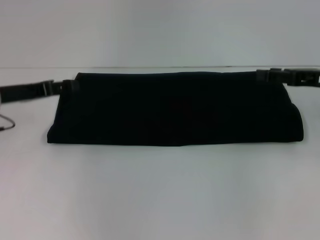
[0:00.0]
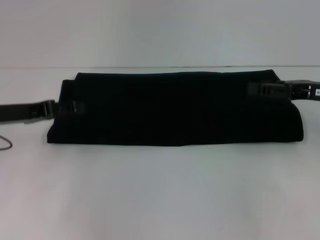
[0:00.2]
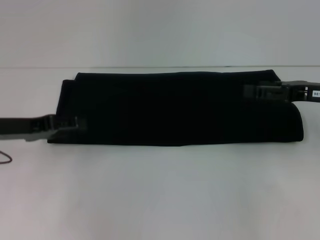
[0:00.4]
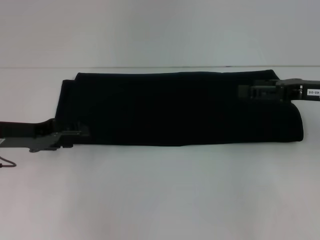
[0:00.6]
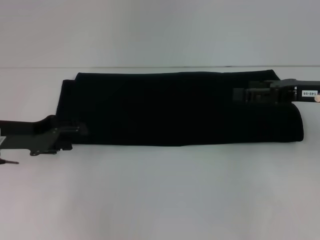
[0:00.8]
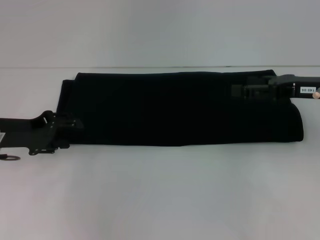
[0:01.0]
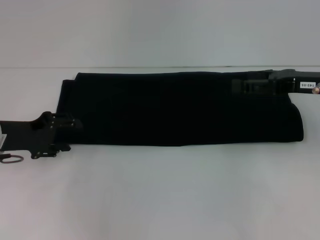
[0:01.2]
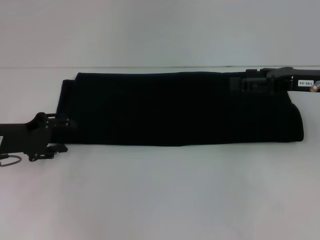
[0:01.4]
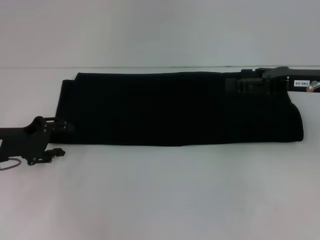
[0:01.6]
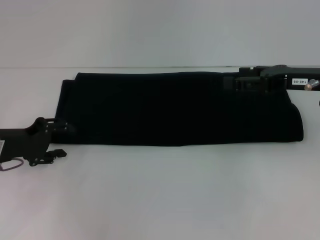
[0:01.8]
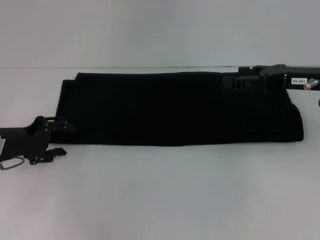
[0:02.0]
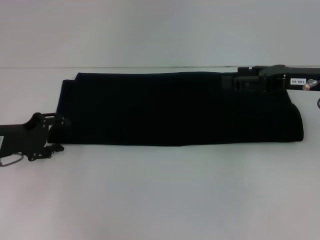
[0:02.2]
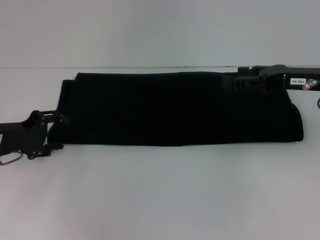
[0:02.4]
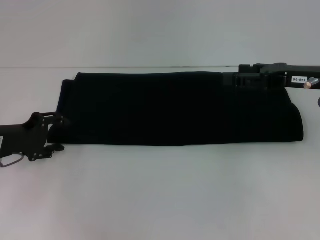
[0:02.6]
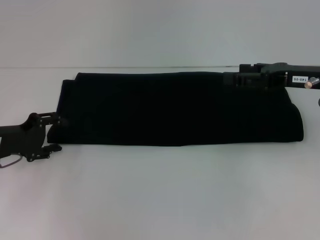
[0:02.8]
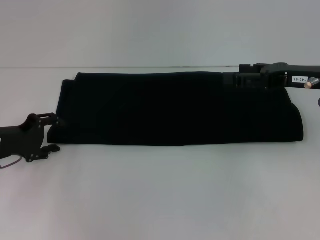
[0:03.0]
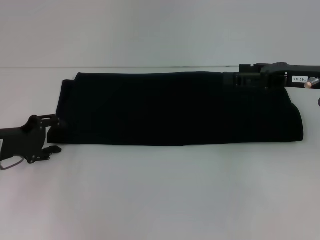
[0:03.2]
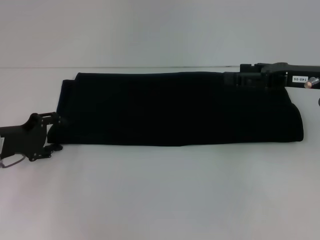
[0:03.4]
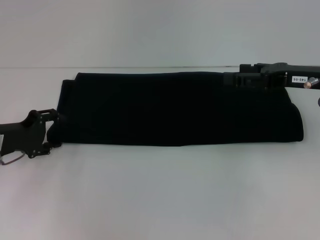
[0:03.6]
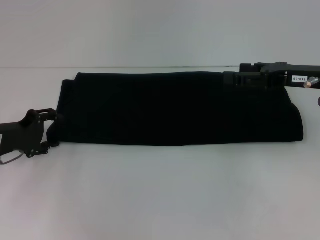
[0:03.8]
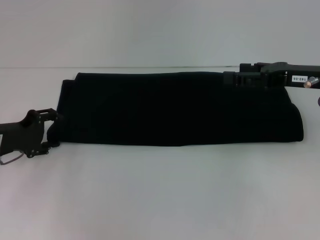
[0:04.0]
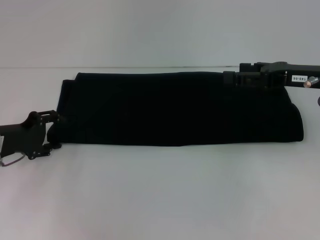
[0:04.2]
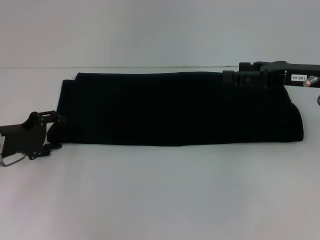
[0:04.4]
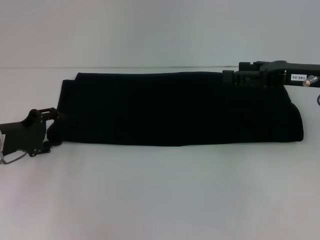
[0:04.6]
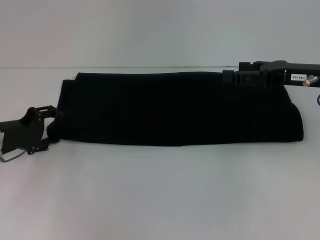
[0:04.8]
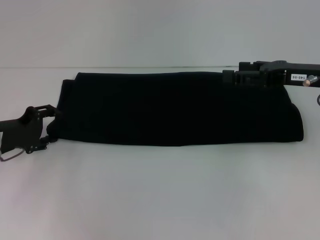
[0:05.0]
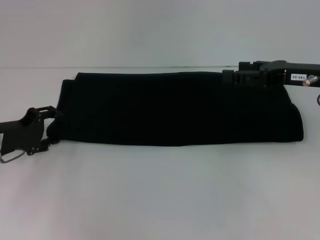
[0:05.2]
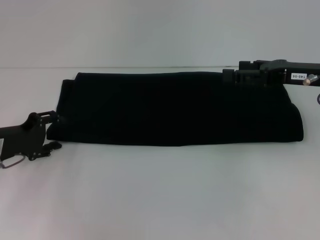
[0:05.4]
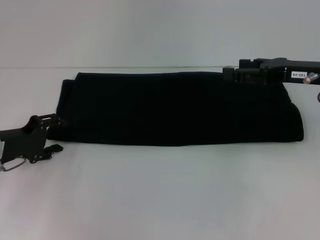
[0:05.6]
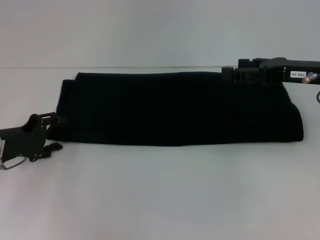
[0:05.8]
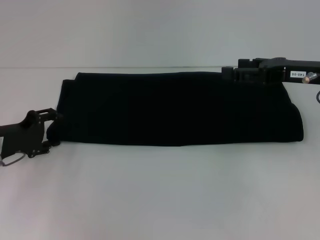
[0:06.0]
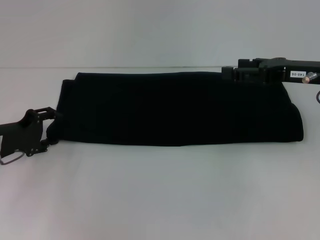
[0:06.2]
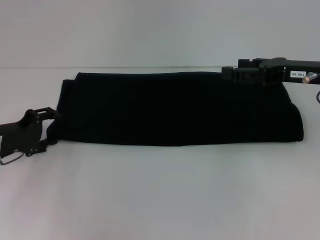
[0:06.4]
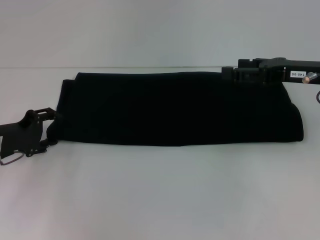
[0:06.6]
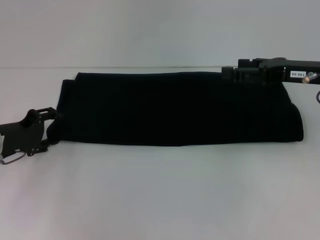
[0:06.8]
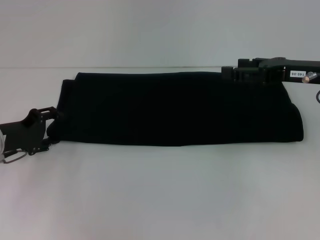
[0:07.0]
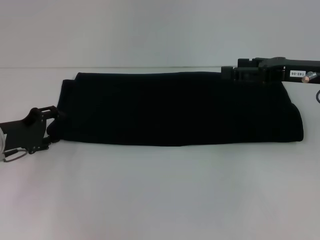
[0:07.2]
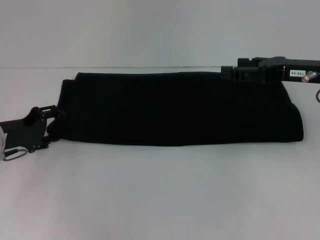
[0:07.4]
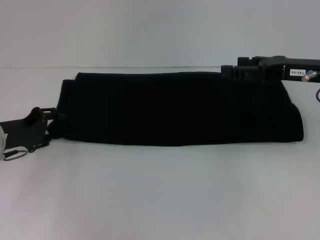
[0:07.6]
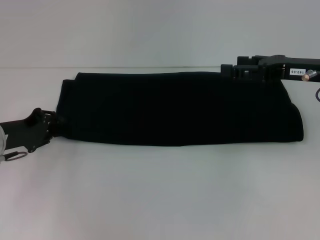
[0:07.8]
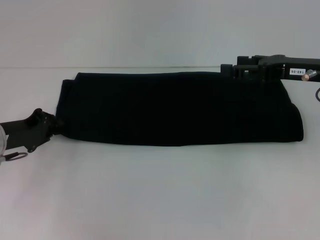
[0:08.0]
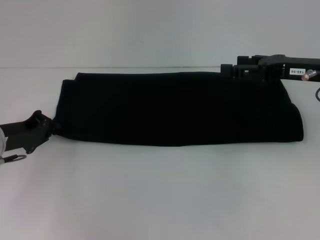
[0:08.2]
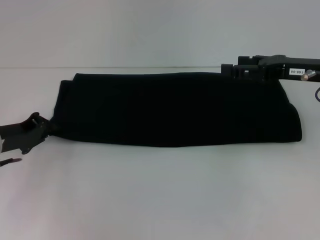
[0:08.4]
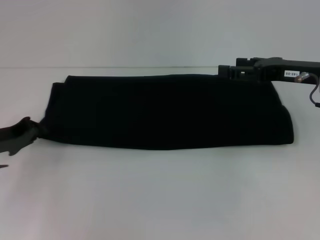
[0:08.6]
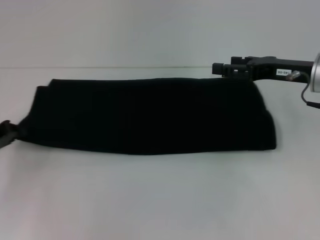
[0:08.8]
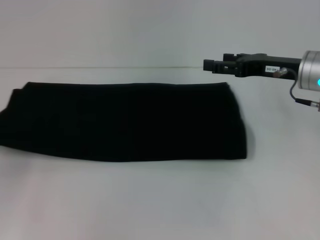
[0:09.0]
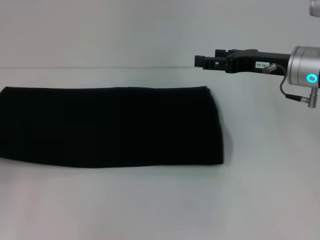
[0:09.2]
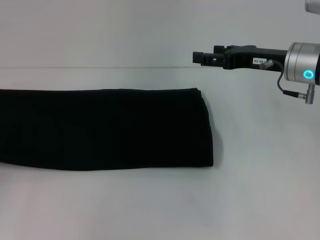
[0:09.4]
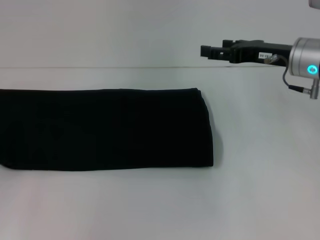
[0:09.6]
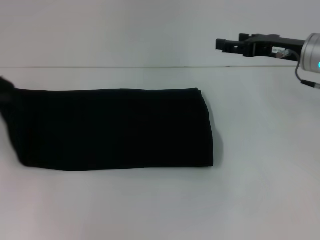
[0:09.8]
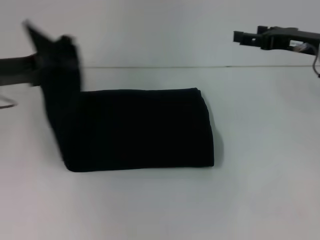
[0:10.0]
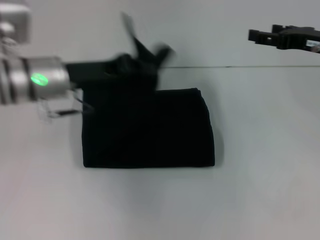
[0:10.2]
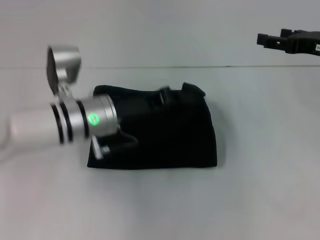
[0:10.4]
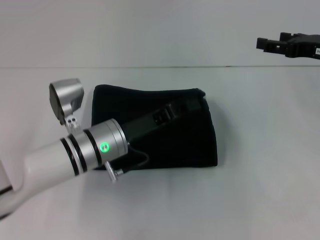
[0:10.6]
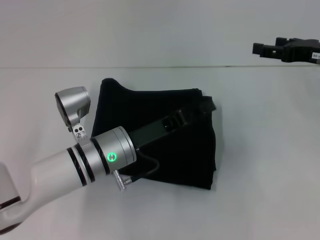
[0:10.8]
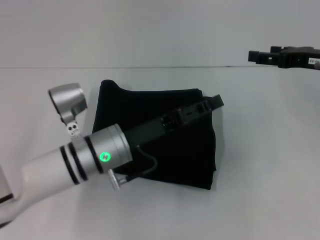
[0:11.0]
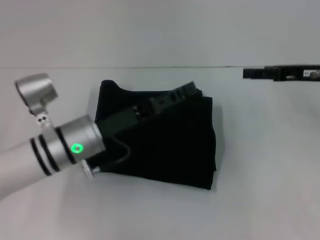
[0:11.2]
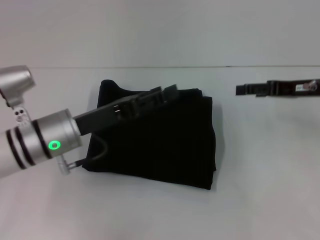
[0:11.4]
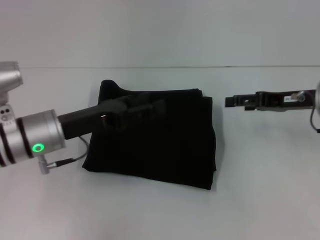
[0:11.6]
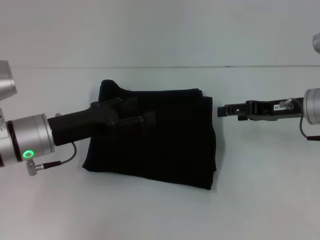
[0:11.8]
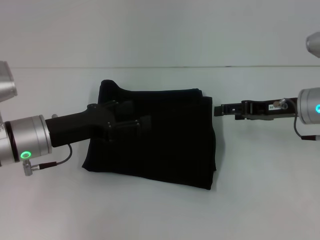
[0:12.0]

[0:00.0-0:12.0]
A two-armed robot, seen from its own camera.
Step, 0:00.0 to 0:11.0: Fold the clothes with your left hand.
0:00.0 to 0:01.6: The left gripper shifts by roughly 5 cm.
0:01.6 to 0:03.0: There are only small adjustments of the grippers.
0:03.0 to 0:04.4: Both grippers stay put.
0:04.4 to 0:06.0: Both grippers stay about where they are.
0:06.0 to 0:07.6: The grippers make only small movements.
0:07.6 to 0:09.0: The left gripper heads to the left, covering some 10 cm, and closes up.
0:09.0 to 0:10.4: The left gripper shifts some 25 cm to the right, while the right gripper goes some 5 cm to the right.
0:10.4 to 0:12.0: The left gripper is displaced to the left by roughly 10 cm, and opens up; the right gripper is displaced downward and to the left by roughly 10 cm.

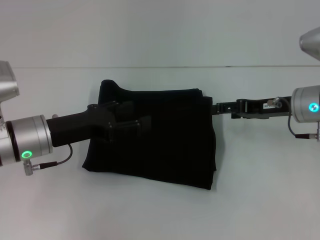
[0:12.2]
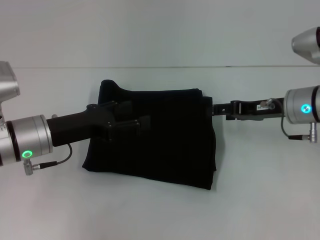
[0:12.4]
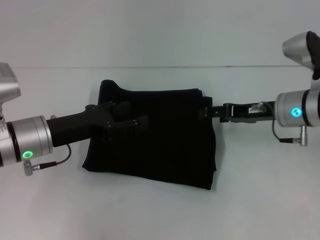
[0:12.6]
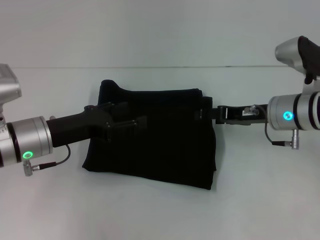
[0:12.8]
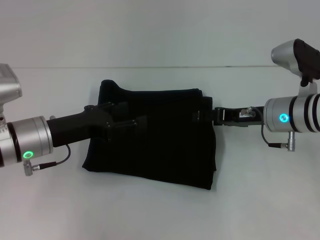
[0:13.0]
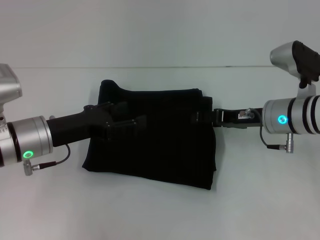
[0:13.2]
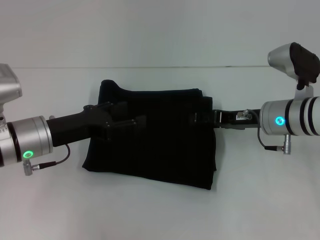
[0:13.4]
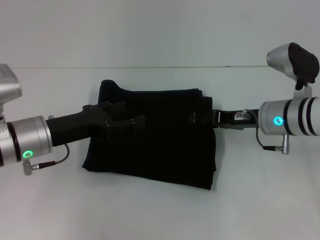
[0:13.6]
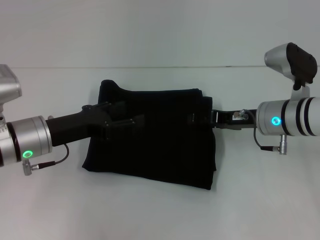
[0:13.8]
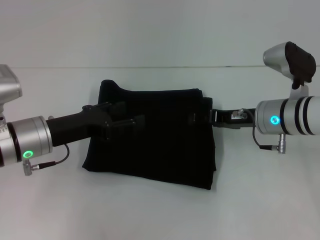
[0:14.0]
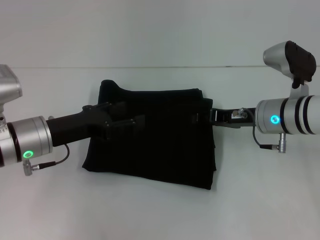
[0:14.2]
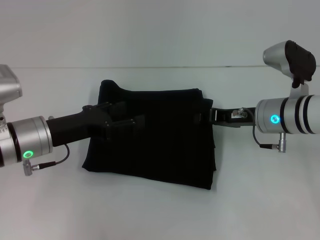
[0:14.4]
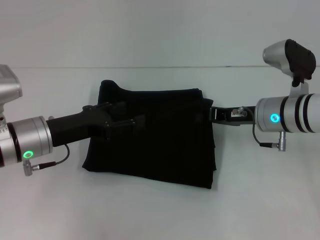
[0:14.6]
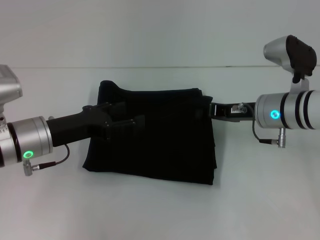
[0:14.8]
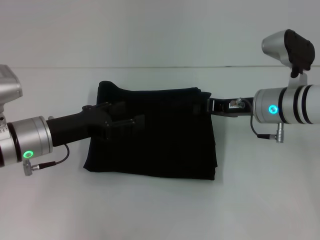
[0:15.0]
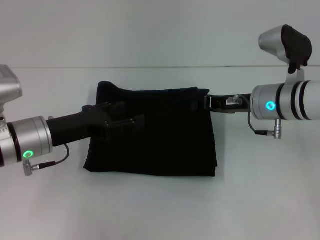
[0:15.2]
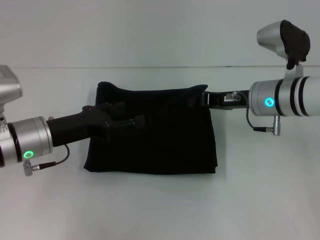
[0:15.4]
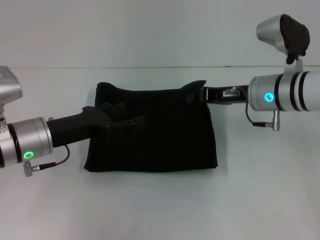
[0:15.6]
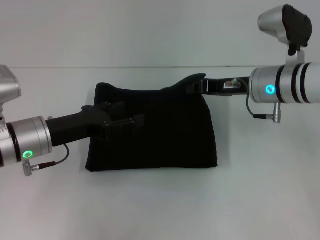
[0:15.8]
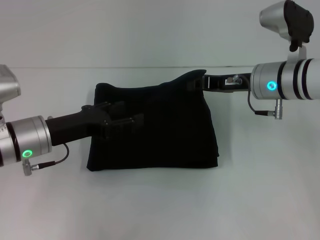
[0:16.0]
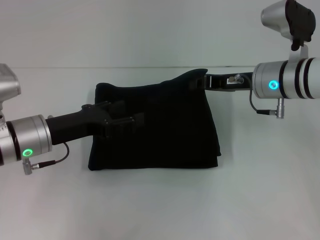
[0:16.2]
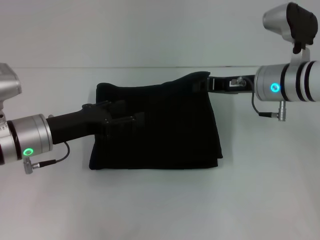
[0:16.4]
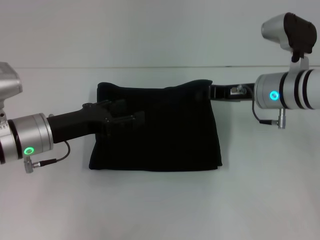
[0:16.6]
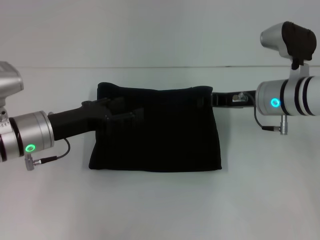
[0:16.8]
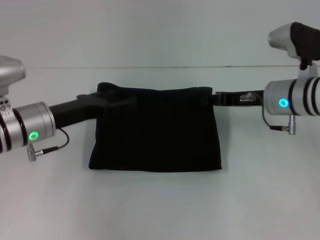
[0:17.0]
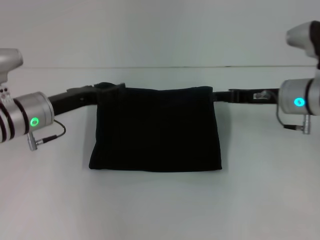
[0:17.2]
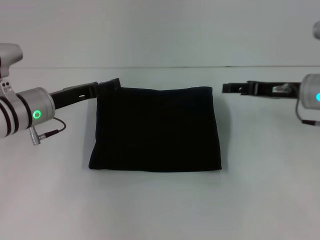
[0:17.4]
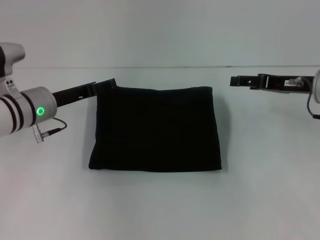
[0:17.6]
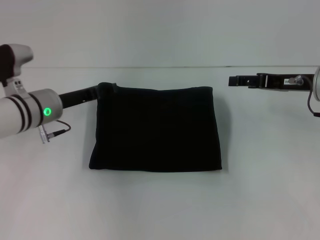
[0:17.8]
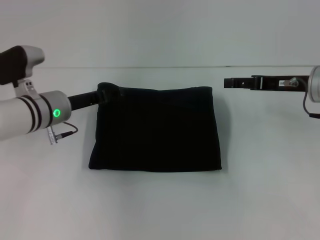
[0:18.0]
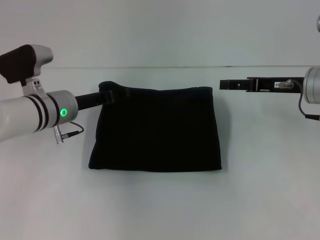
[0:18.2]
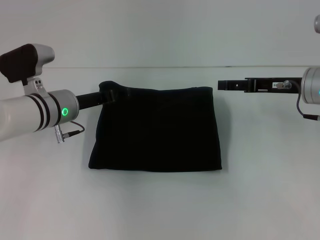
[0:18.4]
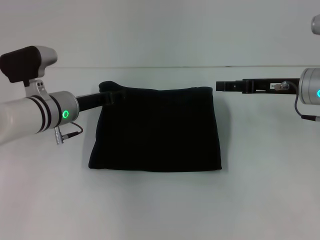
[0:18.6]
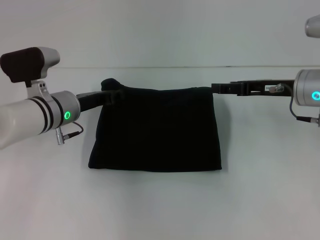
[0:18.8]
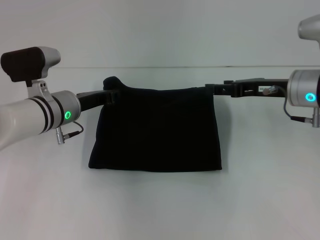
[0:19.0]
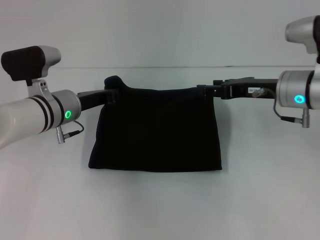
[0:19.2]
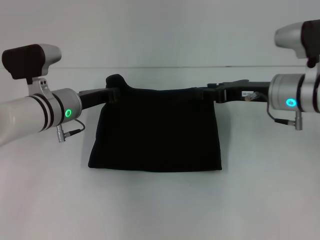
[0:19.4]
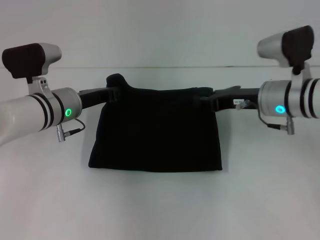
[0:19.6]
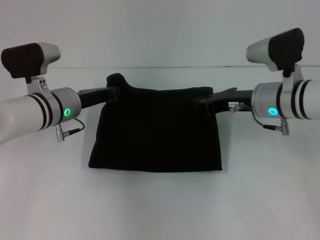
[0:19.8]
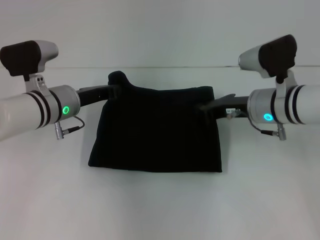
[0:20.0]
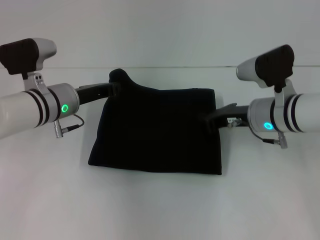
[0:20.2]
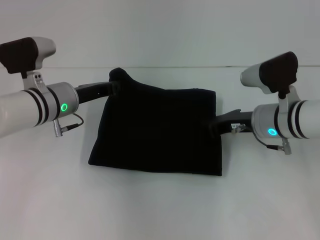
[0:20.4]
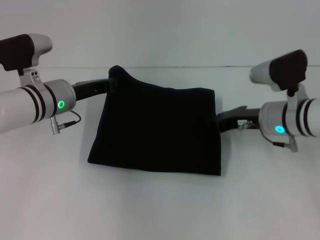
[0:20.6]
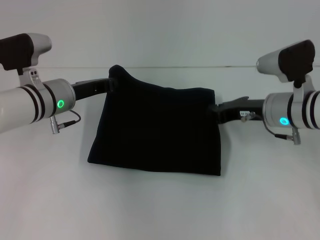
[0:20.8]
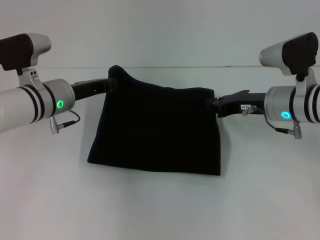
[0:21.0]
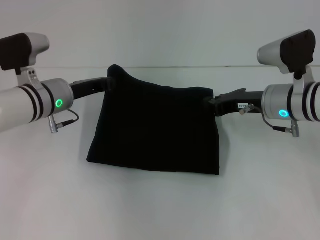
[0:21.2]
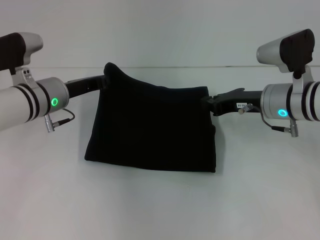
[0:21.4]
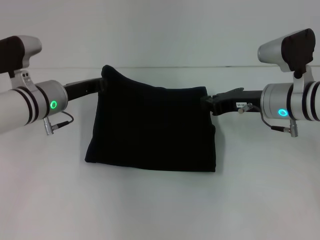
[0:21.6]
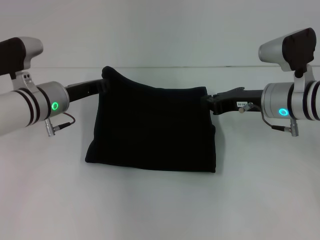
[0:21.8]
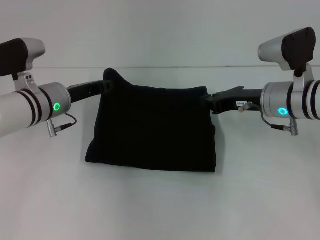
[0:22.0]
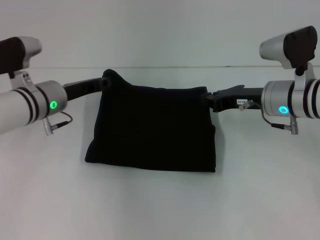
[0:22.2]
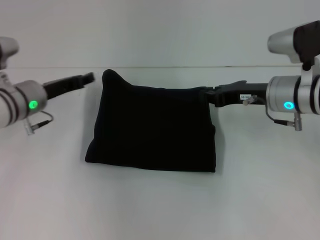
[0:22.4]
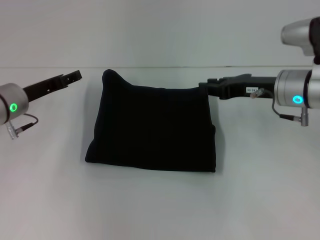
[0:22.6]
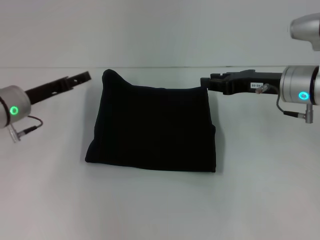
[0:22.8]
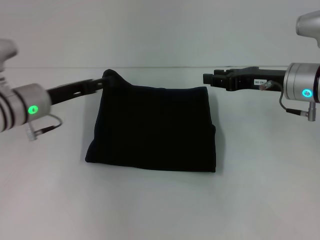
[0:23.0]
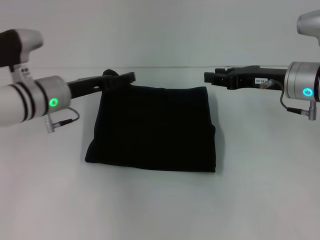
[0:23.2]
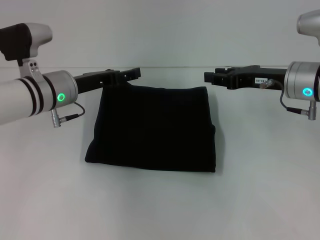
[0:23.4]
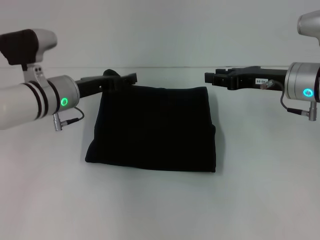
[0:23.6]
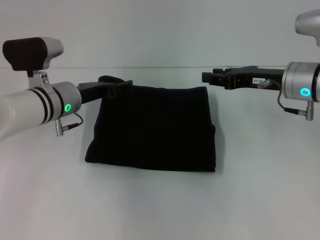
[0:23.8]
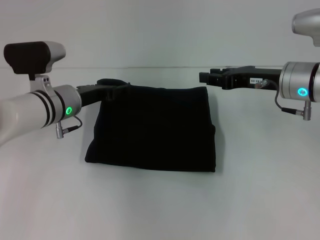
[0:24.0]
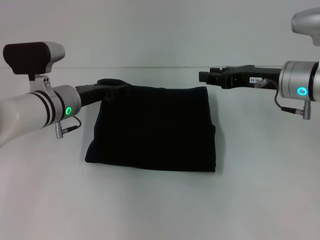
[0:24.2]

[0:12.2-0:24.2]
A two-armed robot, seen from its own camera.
0:12.2 to 0:13.8: The right gripper changes place by about 5 cm.
0:13.8 to 0:15.2: The right gripper closes up.
0:15.2 to 0:16.6: There are only small adjustments of the grippers.
0:16.6 to 0:18.2: The right gripper moves to the right, roughly 5 cm, and opens up. The left gripper heads forward, covering about 5 cm.
0:18.2 to 0:19.8: The right gripper travels to the left by roughly 5 cm, and closes up. The left gripper closes its fingers.
0:19.8 to 0:21.2: The right gripper closes up.
0:21.2 to 0:22.6: The left gripper moves to the left, some 5 cm, and opens.
0:22.6 to 0:24.2: The left gripper heads to the right, covering about 10 cm, and opens its fingers.
